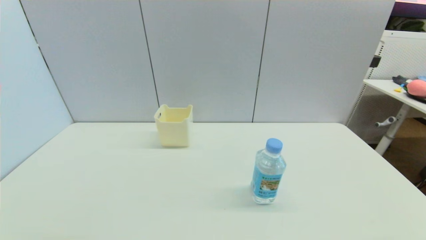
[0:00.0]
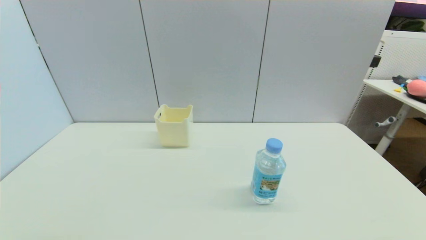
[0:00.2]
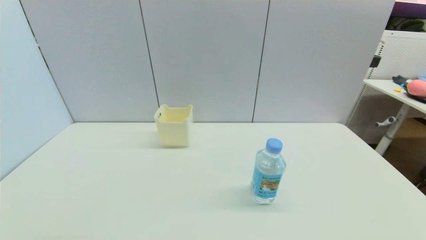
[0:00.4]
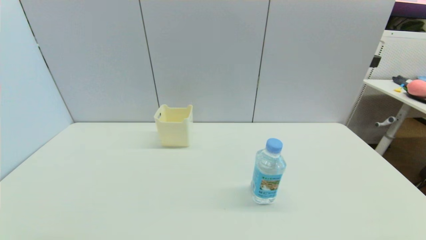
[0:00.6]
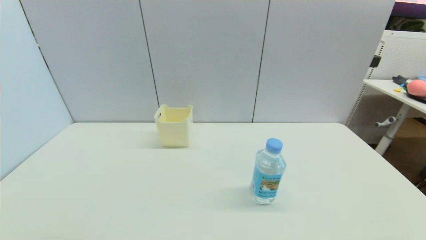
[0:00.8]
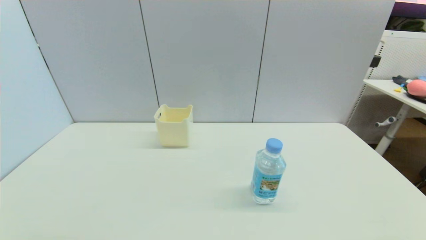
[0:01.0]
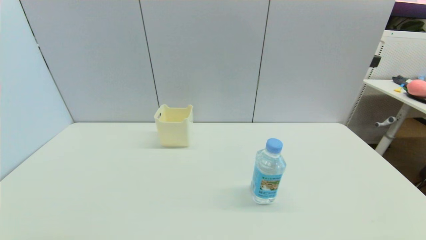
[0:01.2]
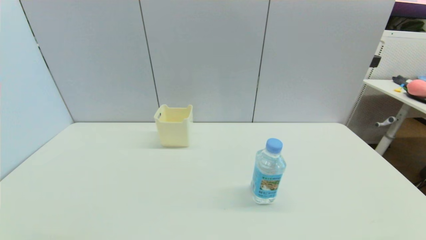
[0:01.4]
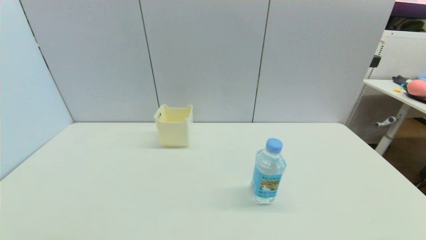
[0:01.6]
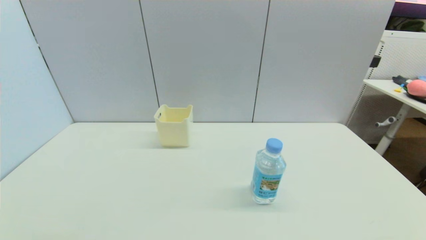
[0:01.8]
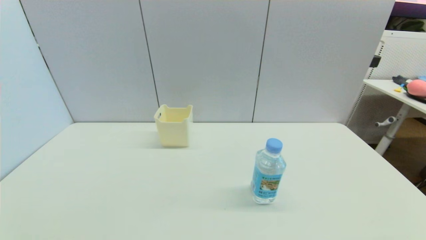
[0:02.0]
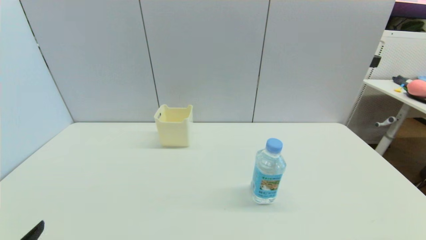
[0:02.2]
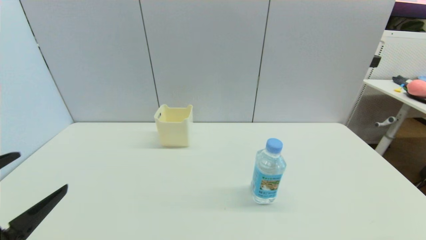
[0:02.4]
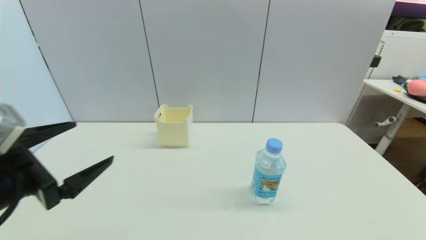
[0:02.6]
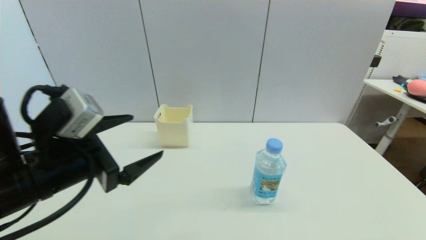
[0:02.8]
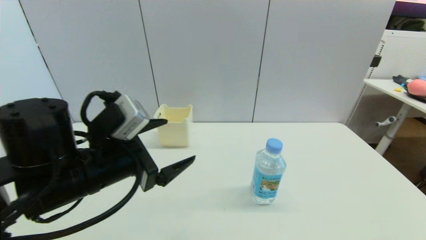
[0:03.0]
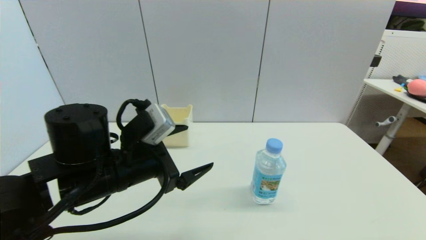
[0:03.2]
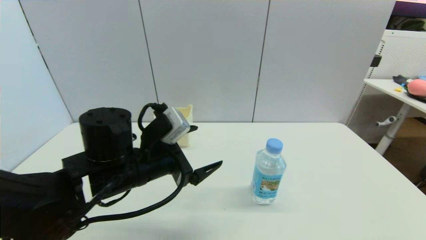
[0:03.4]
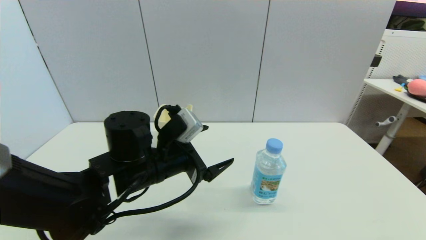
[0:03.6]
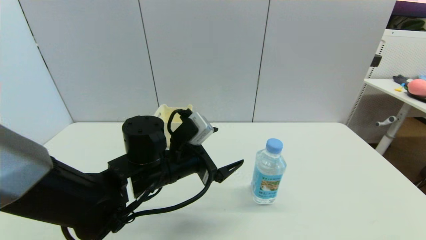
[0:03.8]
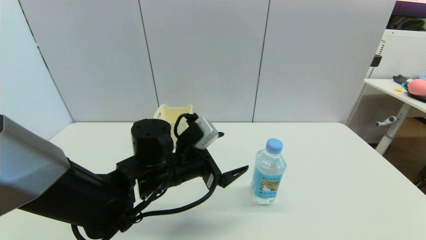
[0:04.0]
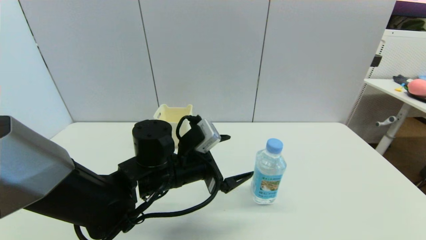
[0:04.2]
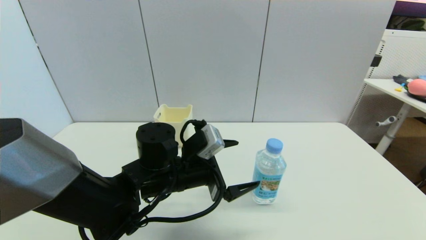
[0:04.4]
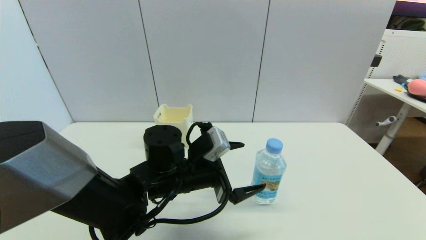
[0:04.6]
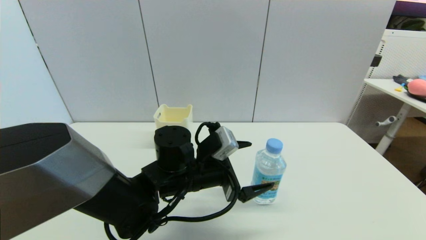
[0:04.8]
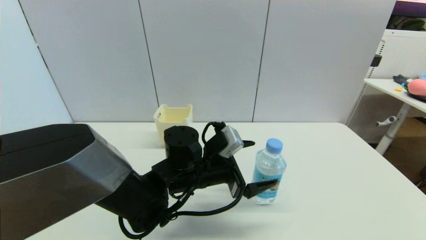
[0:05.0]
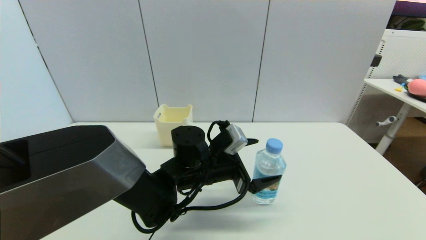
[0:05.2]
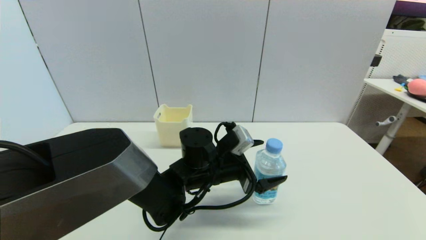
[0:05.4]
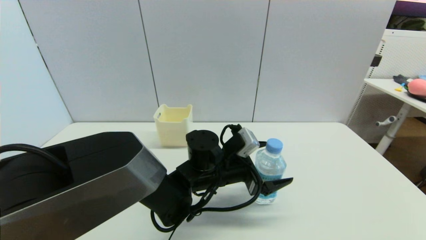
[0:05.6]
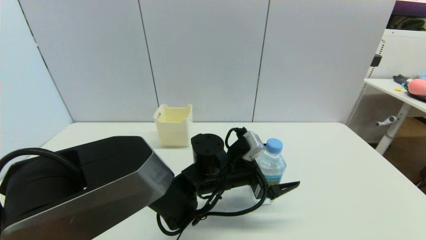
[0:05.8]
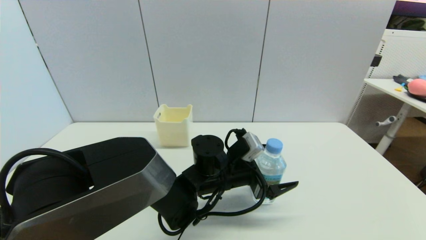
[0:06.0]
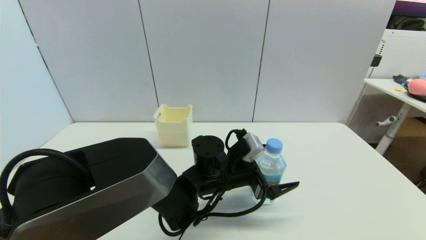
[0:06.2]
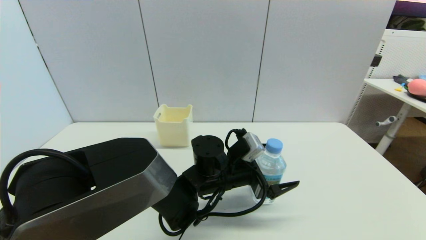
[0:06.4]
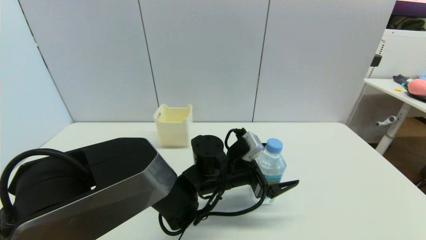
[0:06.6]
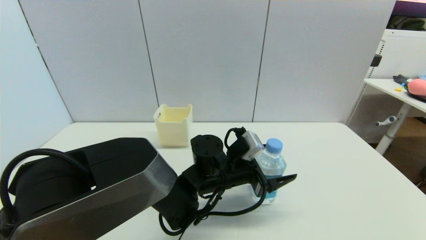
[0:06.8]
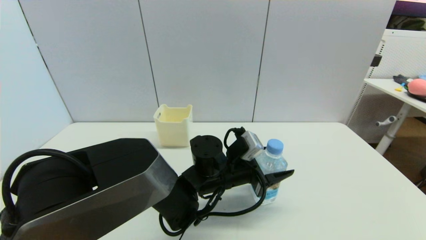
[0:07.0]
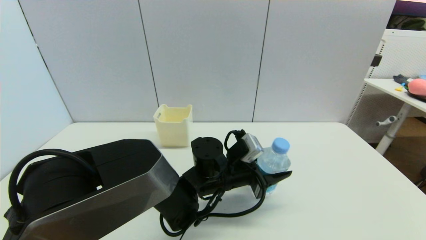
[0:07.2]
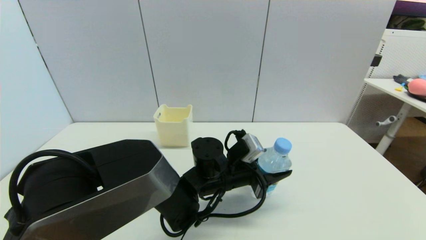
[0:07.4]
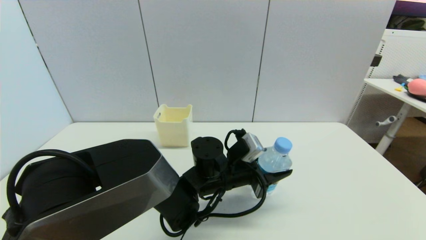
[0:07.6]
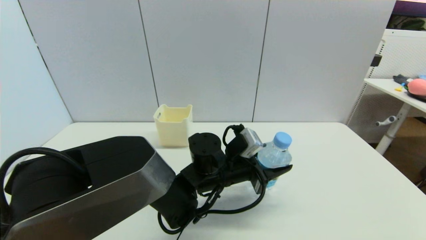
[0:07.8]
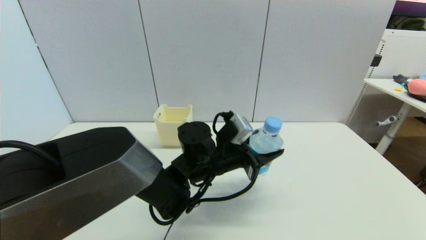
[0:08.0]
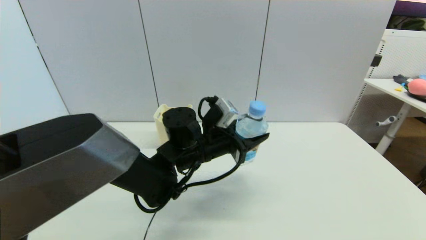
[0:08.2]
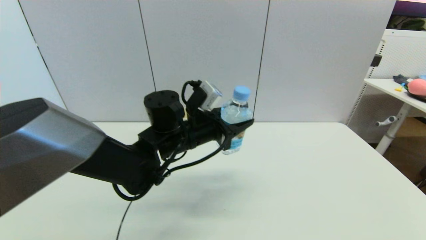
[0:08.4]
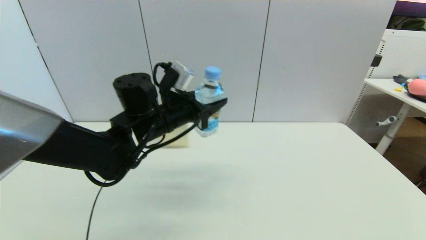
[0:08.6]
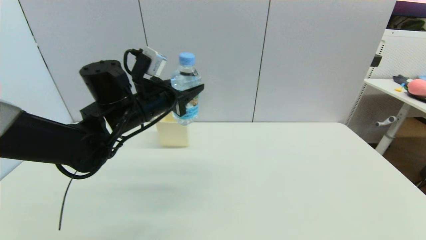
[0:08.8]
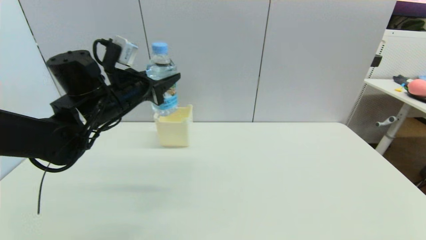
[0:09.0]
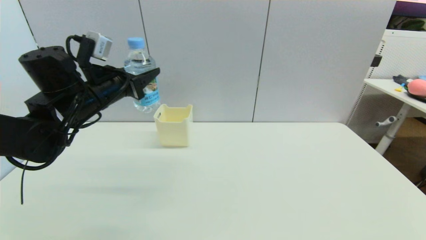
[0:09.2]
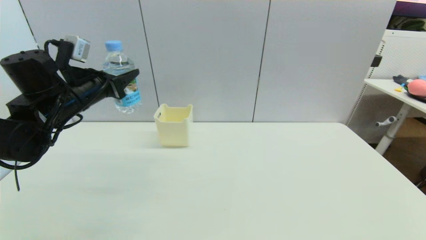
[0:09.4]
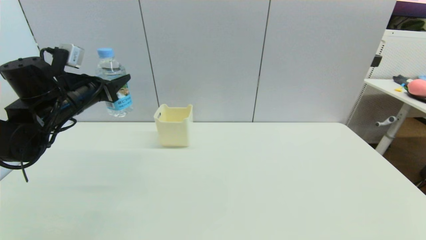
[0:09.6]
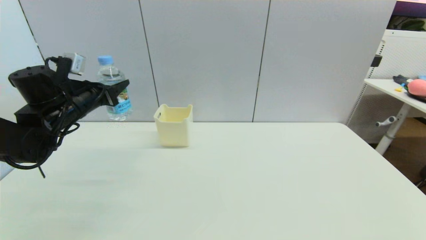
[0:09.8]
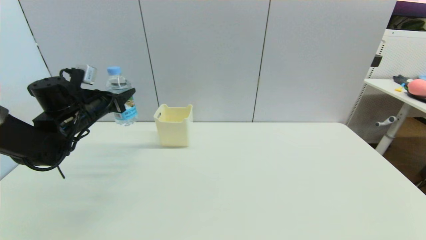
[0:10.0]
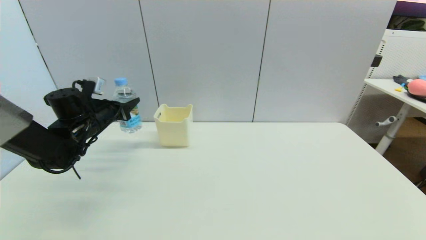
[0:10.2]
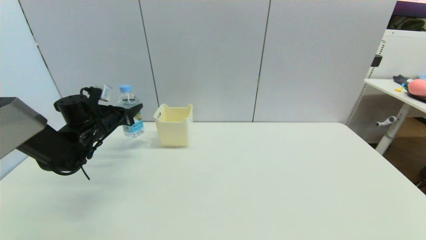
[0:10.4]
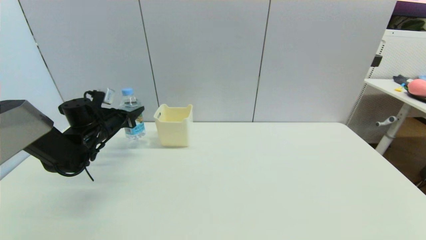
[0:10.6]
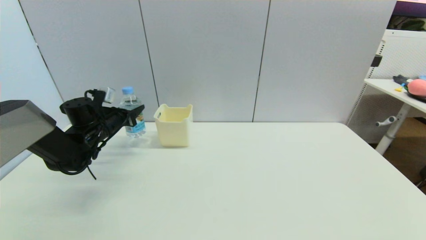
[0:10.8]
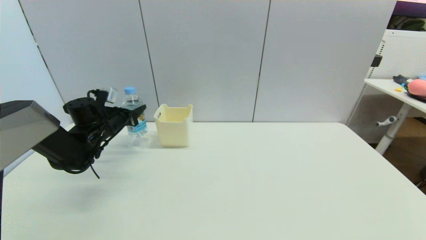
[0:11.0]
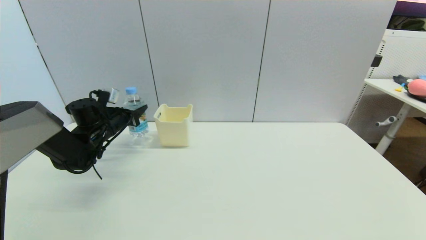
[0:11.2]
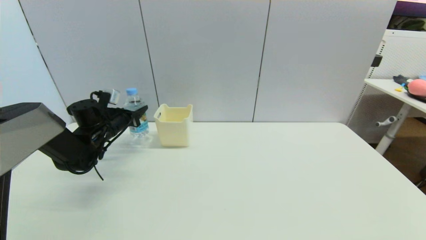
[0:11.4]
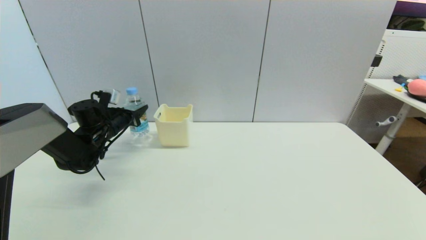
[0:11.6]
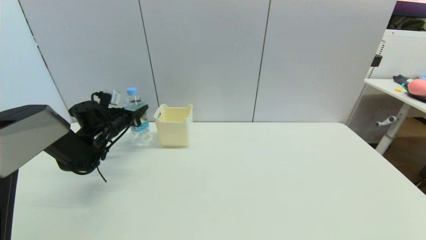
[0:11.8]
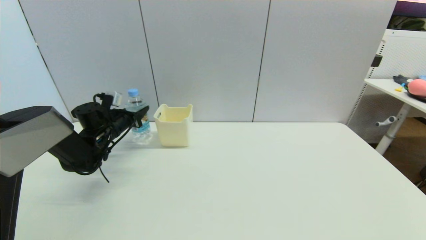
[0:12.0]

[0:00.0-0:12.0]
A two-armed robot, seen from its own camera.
Step, 0:02.0 to 0:07.6: Grasp the soda water with left gripper.
0:00.0 to 0:01.6: Both grippers stay put.
0:01.6 to 0:03.0: The left gripper is displaced forward, to the right and upward by some 30 cm.
0:03.0 to 0:04.4: The left gripper goes about 15 cm to the right, downward and forward.
0:04.4 to 0:06.0: The left gripper is displaced to the right by some 10 cm.
0:06.0 to 0:07.6: The left gripper closes its fingers.
0:07.6 to 0:09.0: The left gripper goes some 25 cm to the left and upward.
0:09.0 to 0:10.4: The left gripper travels downward, to the left and forward by approximately 20 cm.
0:10.4 to 0:12.0: The grippers make only small movements.

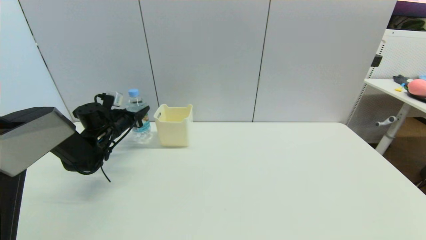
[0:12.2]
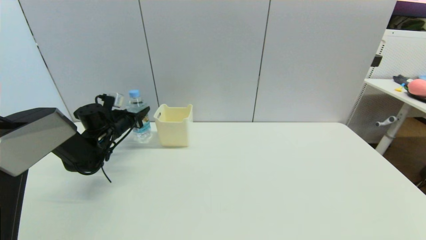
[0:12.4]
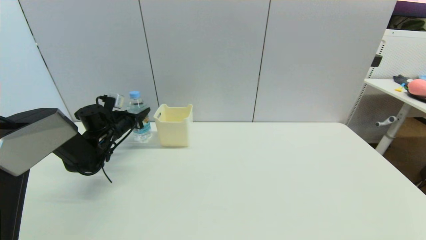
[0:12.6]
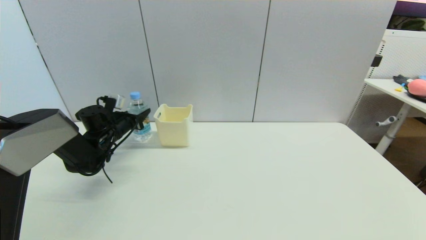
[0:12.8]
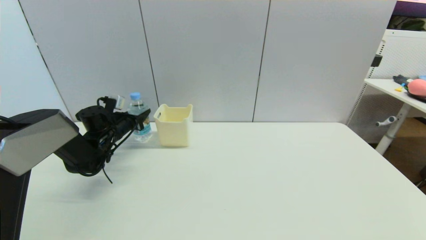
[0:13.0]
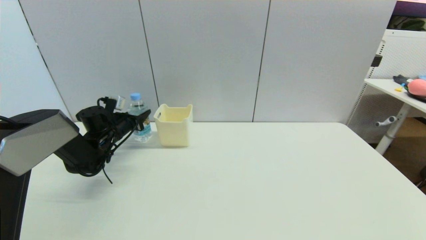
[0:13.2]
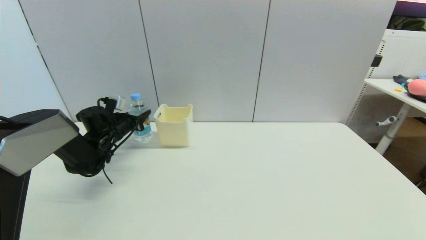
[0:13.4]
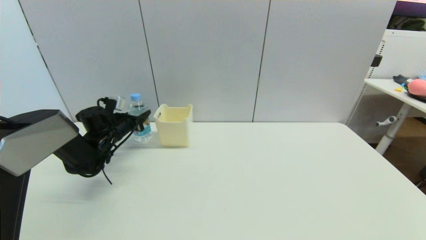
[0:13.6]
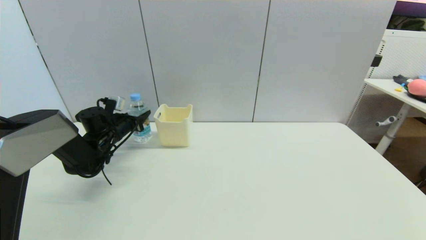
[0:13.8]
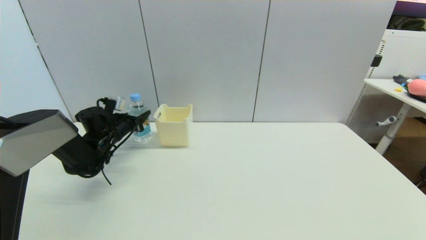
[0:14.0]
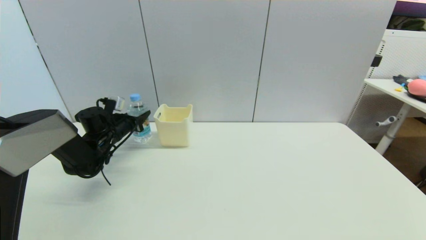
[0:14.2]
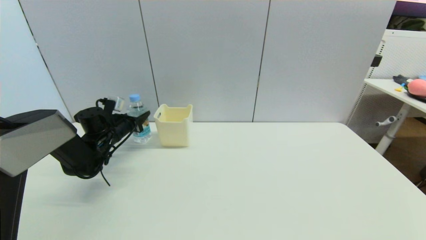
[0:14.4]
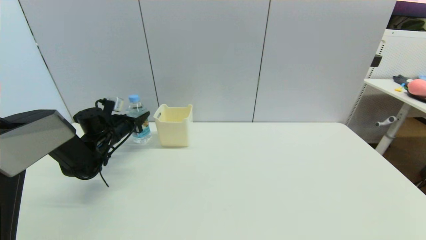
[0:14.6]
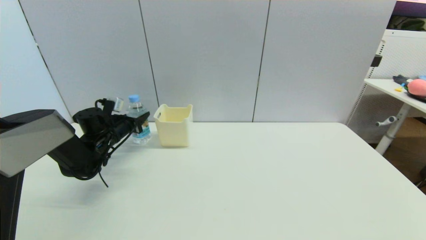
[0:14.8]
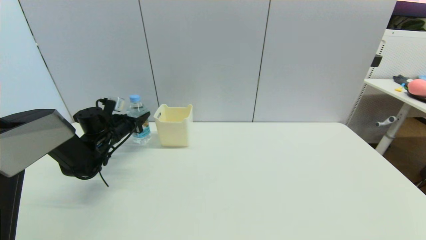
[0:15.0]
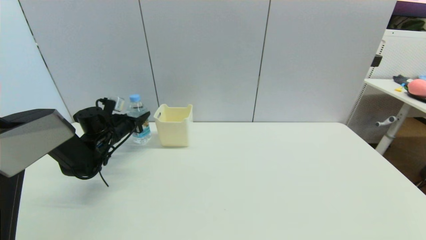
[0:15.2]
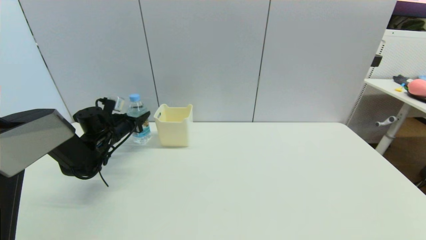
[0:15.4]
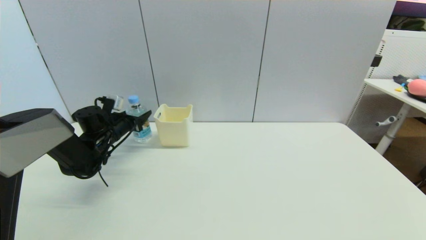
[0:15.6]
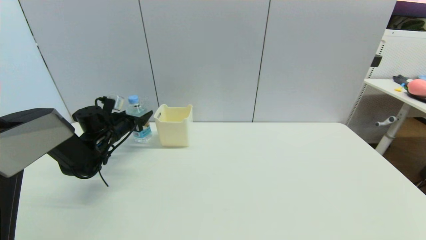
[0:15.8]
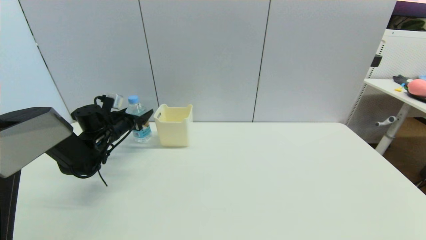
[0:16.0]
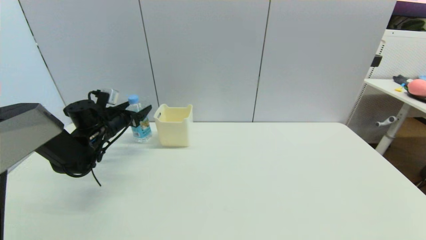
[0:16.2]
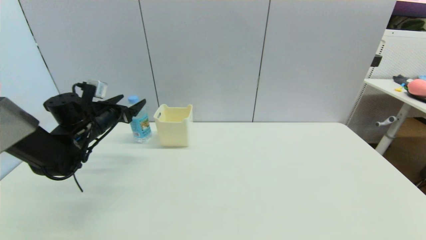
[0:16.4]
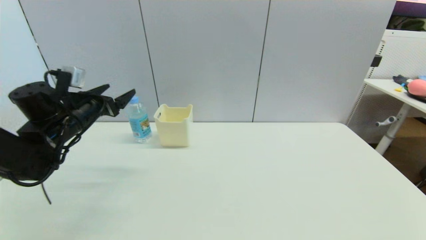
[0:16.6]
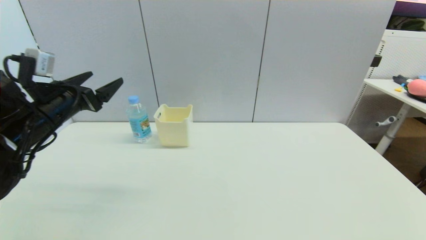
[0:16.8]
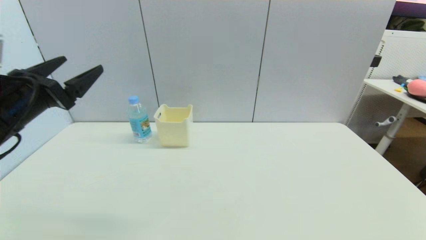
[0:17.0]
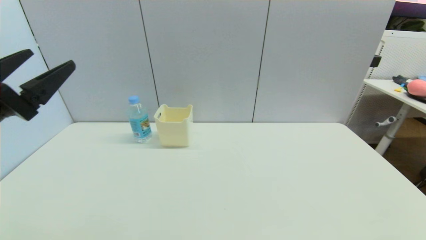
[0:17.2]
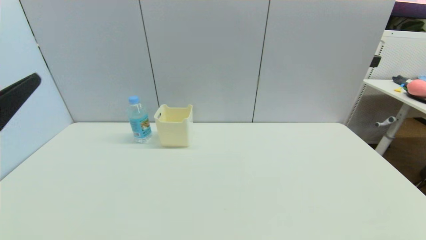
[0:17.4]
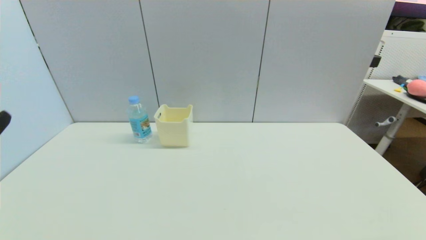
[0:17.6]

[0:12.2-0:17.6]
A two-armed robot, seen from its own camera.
Step, 0:12.2 to 0:15.8: Place the soda water on the table with left gripper.
0:12.2 to 0:13.6: Both grippers stay about where they are.
0:13.6 to 0:15.0: The two grippers keep their place.
0:15.0 to 0:16.2: The left gripper opens up.
0:16.2 to 0:17.6: The left gripper travels backward by roughly 35 cm.
